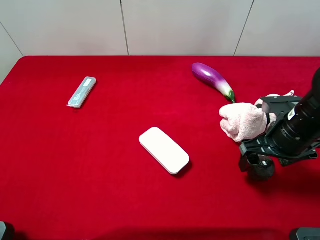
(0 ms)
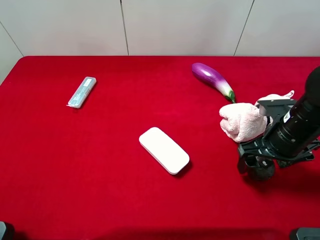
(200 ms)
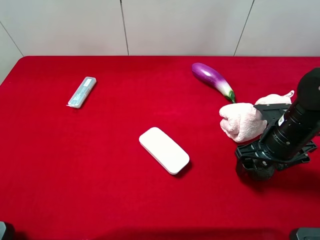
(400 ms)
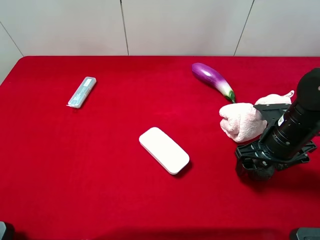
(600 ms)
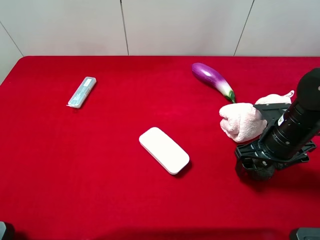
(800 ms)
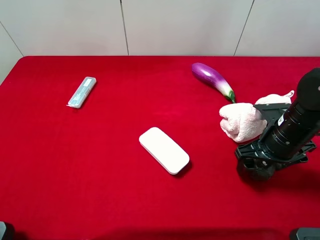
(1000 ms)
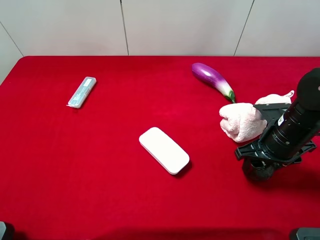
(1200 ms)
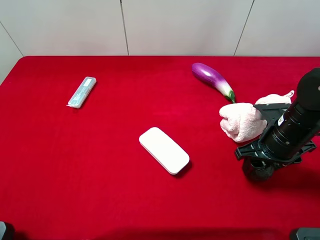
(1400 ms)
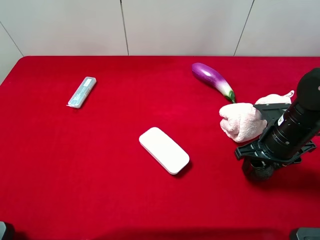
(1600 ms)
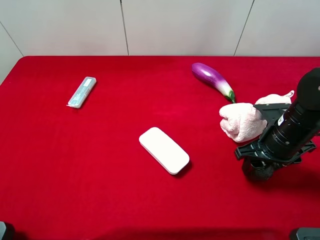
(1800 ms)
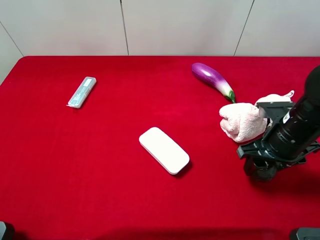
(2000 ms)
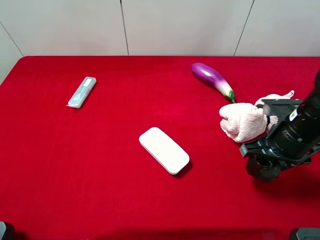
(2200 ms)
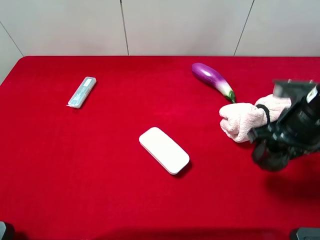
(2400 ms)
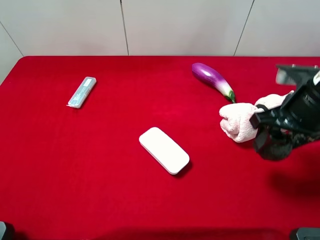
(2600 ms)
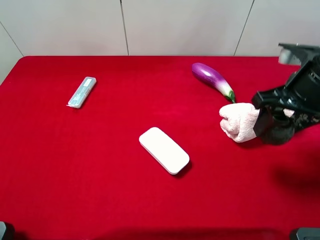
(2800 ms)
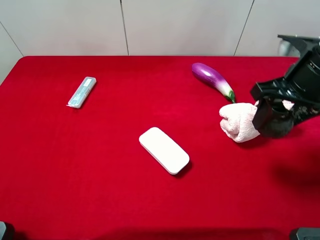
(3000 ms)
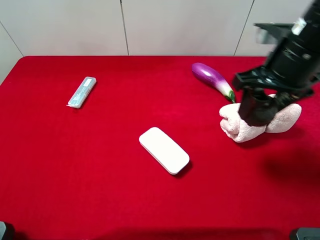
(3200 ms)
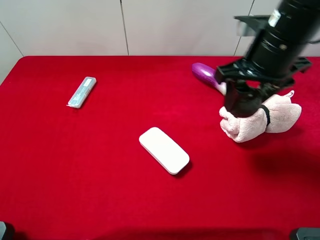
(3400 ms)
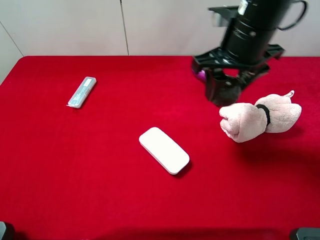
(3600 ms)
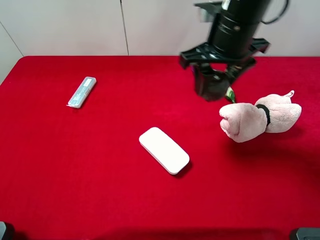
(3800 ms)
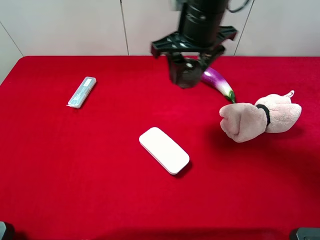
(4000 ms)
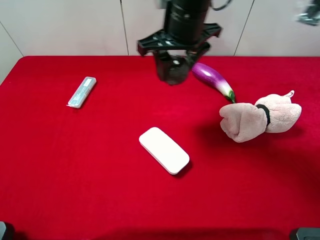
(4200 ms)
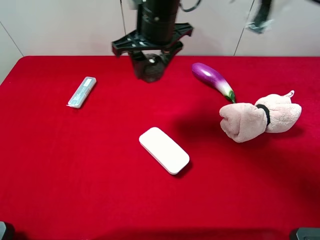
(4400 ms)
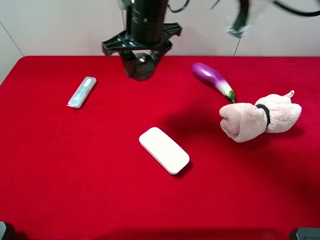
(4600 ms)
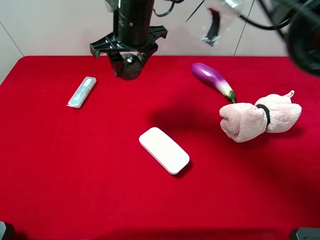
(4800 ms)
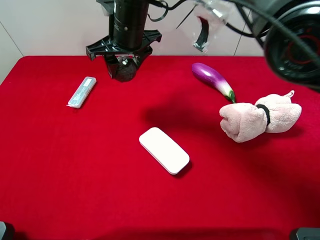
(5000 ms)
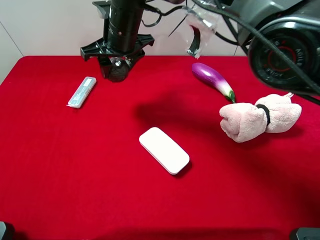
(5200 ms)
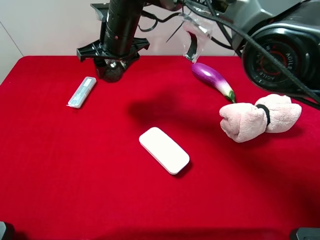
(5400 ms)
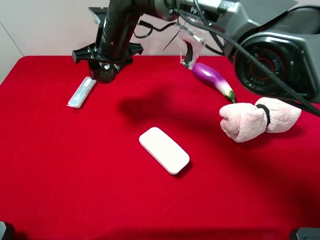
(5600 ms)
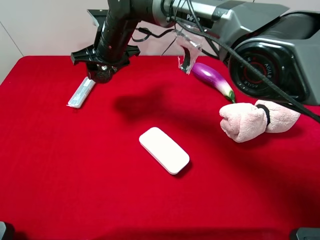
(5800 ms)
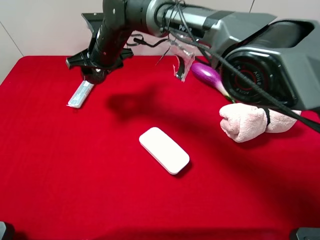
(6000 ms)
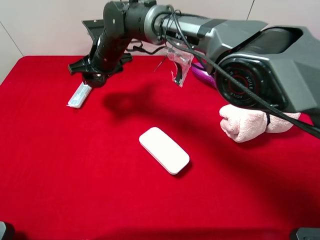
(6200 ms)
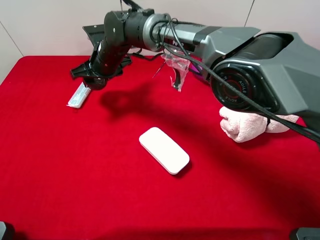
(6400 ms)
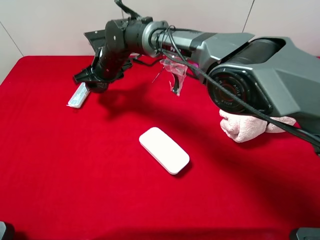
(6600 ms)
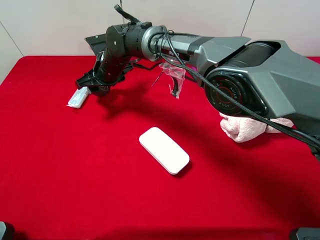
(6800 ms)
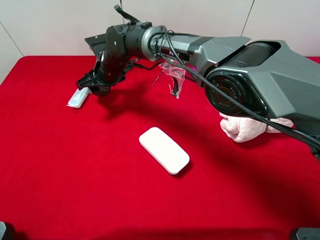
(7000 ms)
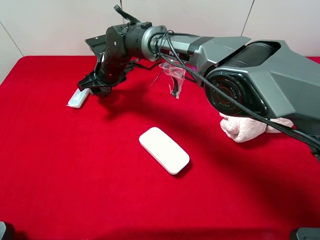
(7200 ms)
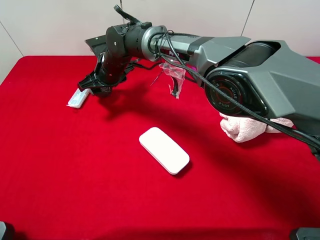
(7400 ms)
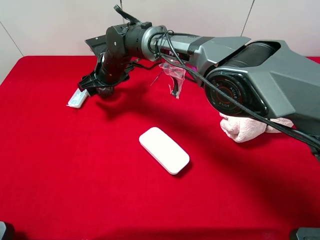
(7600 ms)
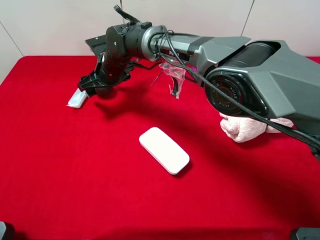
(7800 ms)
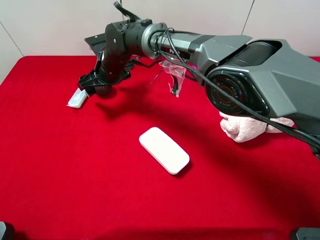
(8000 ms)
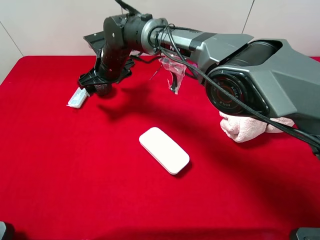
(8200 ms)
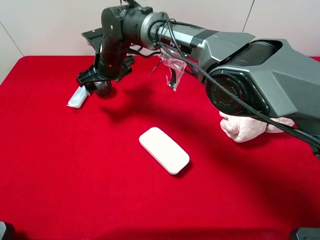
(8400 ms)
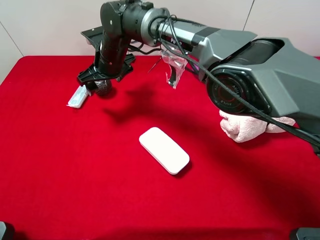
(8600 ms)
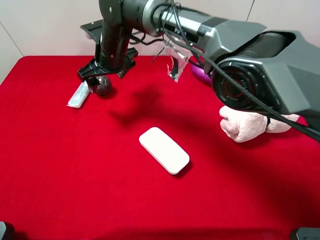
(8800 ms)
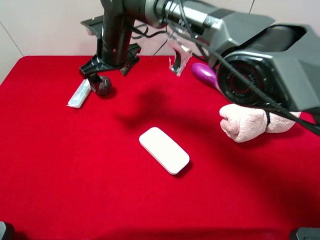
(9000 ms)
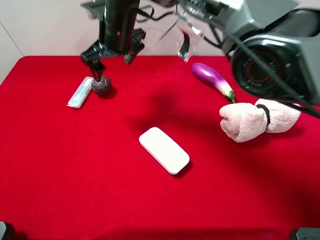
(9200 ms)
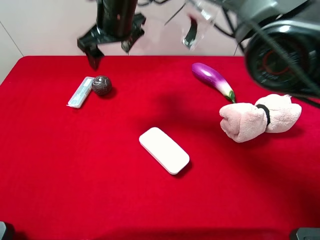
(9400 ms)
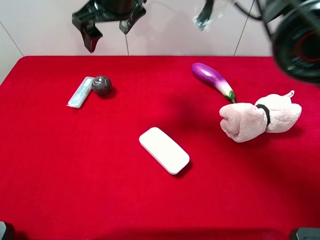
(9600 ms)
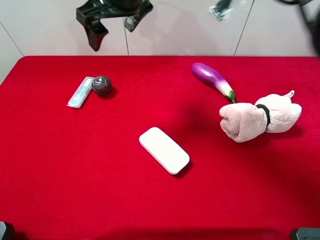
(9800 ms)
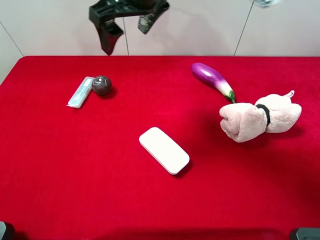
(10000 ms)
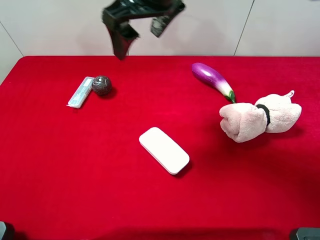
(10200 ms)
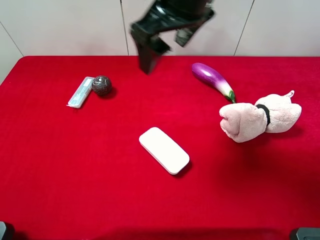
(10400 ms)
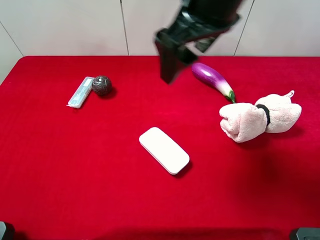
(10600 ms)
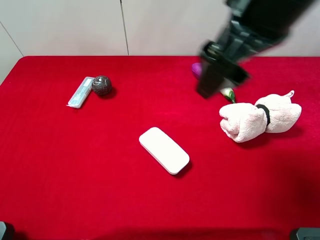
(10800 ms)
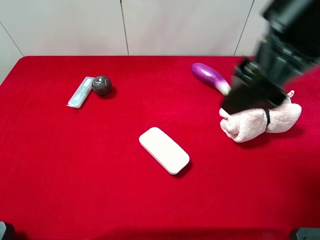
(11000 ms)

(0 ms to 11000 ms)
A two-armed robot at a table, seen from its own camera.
Task of the whole recording: the gripper move the object.
Step, 1800 ms - 9000 ms: Place the mangosteen on the table with the right gripper.
0 ms - 1600 ms: The right gripper closes its fingers.
1600 ms - 3200 ms: The right gripper shifts some 15 cm upward.
3200 ms - 4800 ms: The right gripper is displaced to the left and forward by about 25 cm.
4800 ms - 6200 ms: The right gripper heads downward and to the left, covering some 10 cm.
6200 ms - 7800 ms: The right gripper opens its fingers.
7800 ms - 9400 ms: The right gripper shifts roughly 15 cm upward.
9400 ms - 11000 ms: The right gripper shifts about 30 cm to the right, backward and upward.

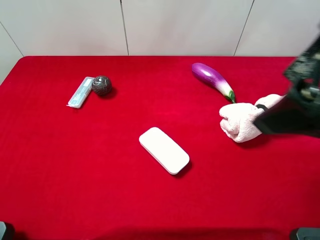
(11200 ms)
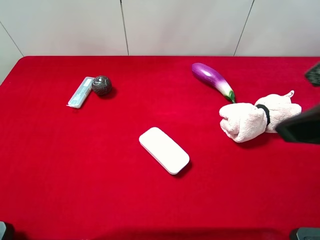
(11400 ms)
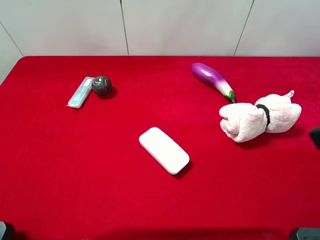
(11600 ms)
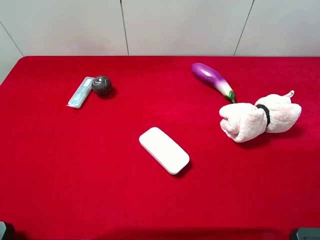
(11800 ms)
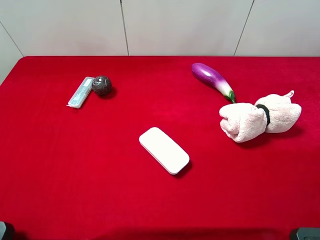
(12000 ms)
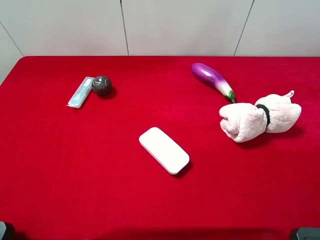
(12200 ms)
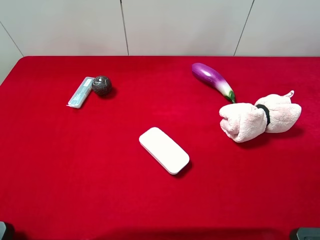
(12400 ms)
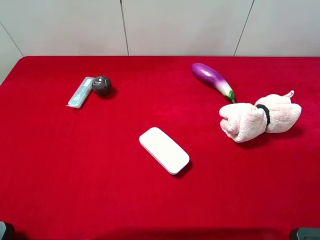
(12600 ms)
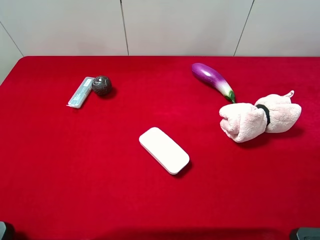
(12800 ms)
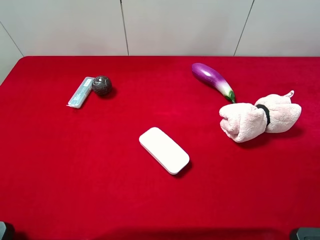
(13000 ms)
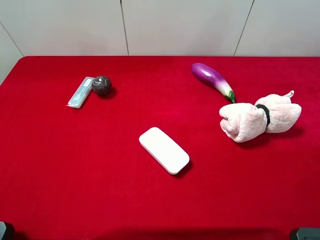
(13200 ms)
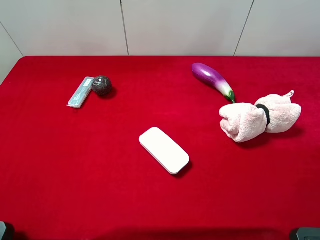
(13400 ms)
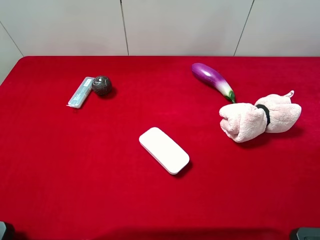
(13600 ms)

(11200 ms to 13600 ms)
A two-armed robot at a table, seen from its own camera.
Task of the whole recording: the gripper move the object.
11200 ms - 12400 ms: The right gripper travels to the right, backward and downward by roughly 15 cm.

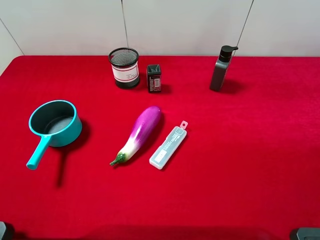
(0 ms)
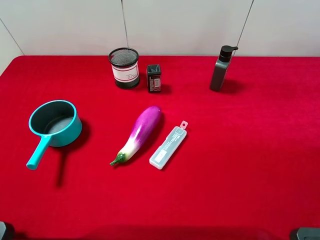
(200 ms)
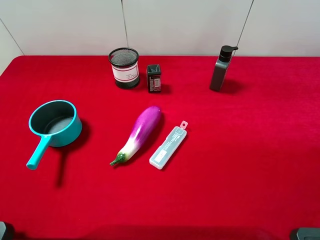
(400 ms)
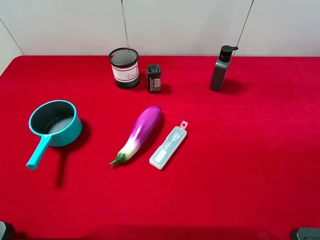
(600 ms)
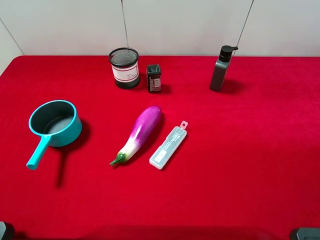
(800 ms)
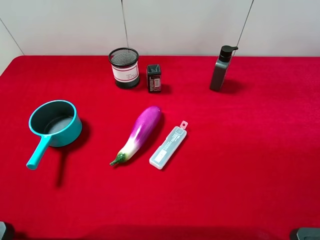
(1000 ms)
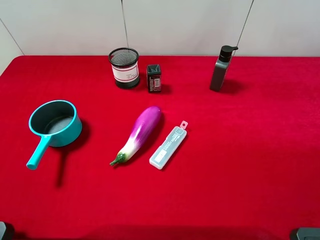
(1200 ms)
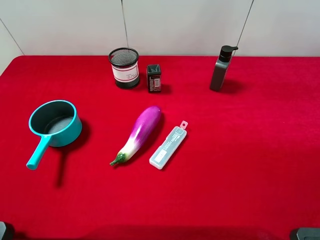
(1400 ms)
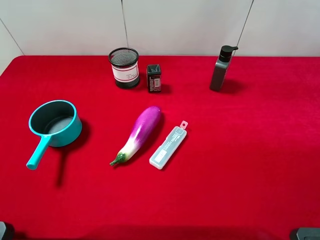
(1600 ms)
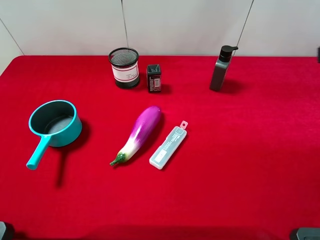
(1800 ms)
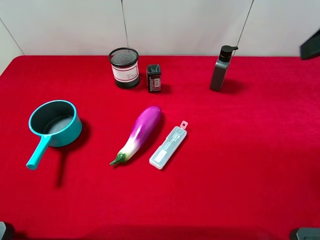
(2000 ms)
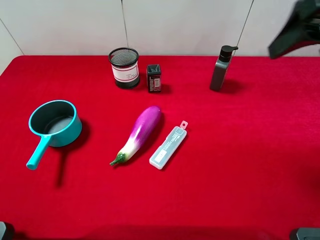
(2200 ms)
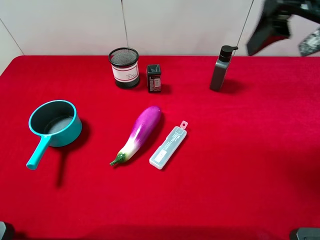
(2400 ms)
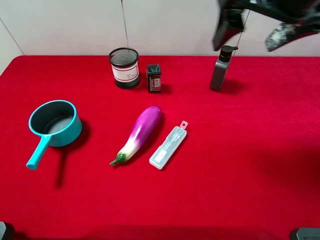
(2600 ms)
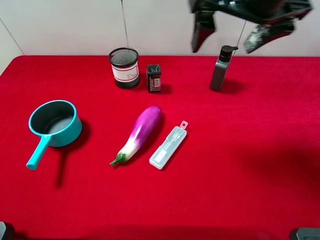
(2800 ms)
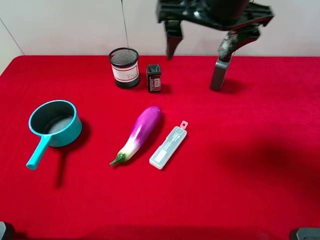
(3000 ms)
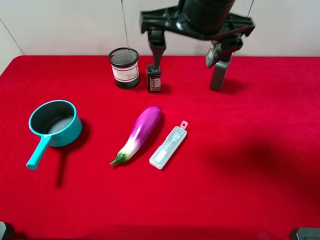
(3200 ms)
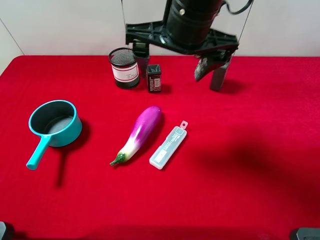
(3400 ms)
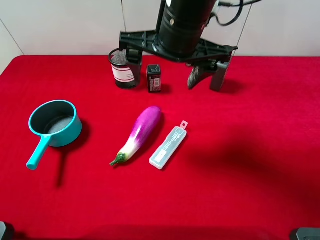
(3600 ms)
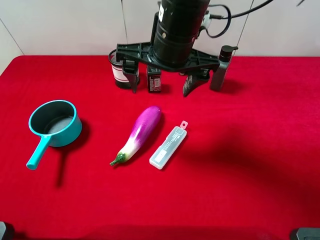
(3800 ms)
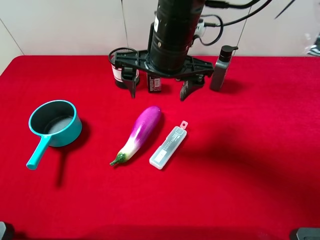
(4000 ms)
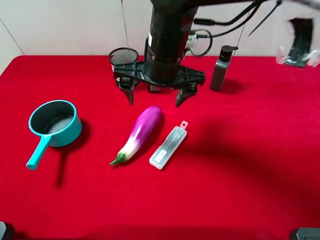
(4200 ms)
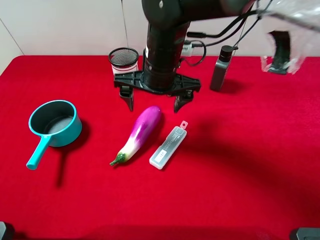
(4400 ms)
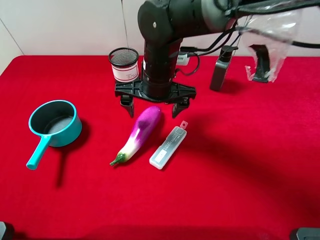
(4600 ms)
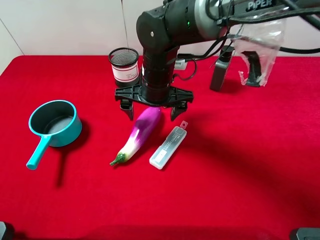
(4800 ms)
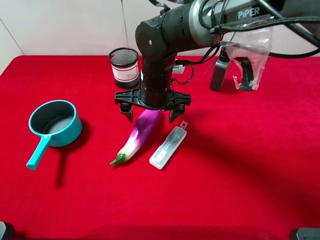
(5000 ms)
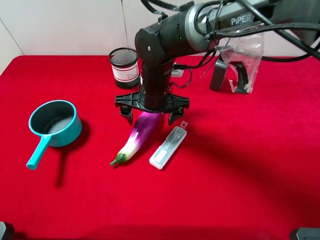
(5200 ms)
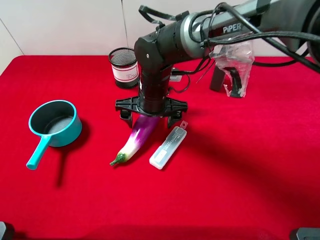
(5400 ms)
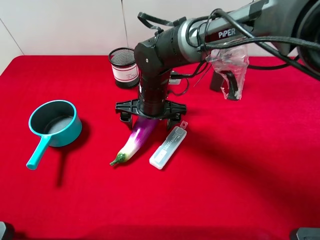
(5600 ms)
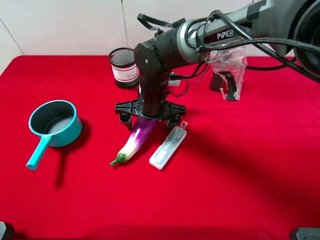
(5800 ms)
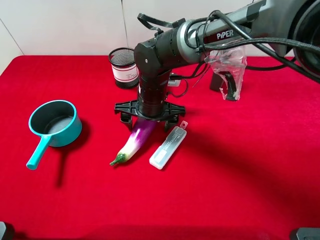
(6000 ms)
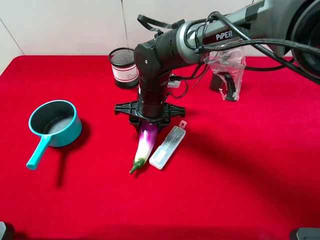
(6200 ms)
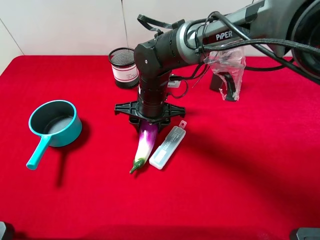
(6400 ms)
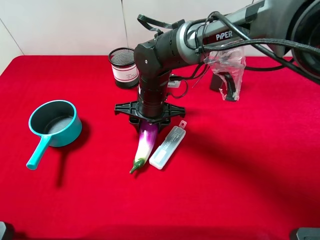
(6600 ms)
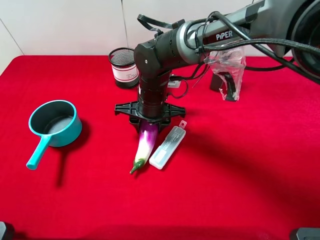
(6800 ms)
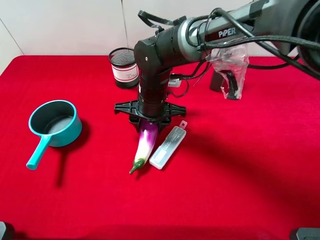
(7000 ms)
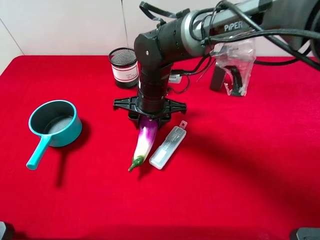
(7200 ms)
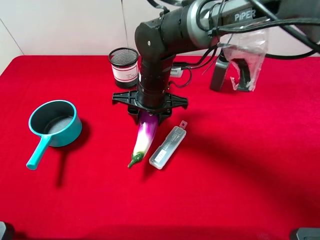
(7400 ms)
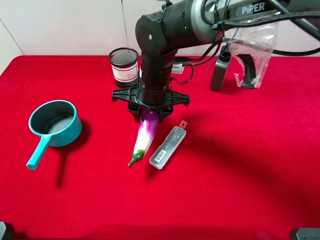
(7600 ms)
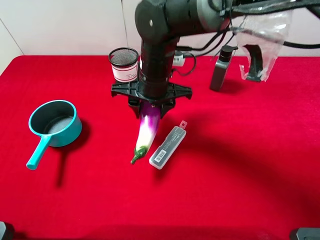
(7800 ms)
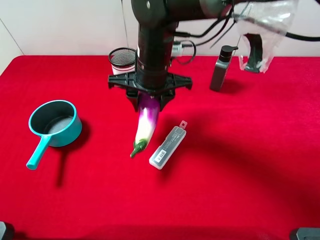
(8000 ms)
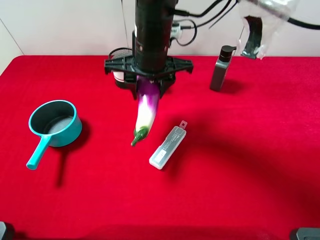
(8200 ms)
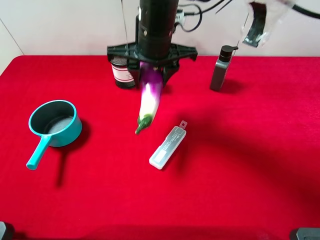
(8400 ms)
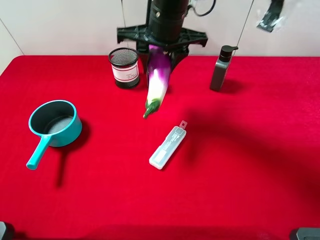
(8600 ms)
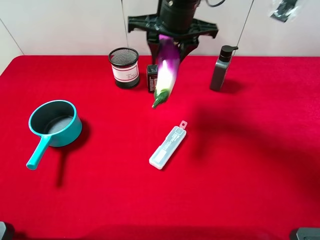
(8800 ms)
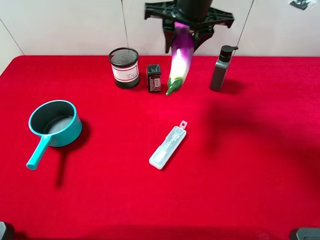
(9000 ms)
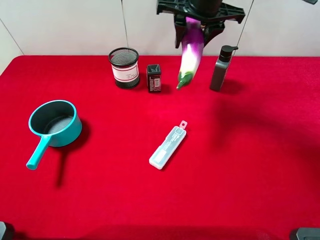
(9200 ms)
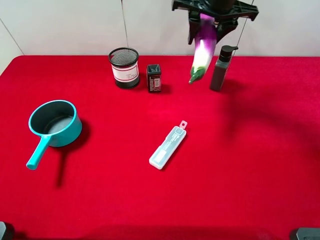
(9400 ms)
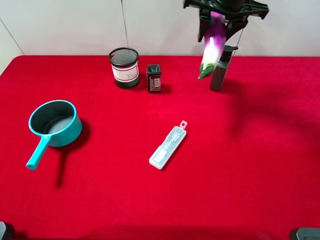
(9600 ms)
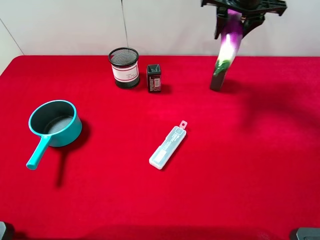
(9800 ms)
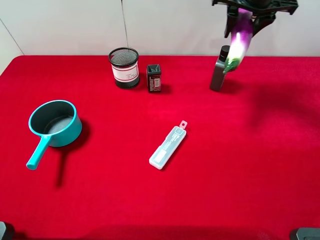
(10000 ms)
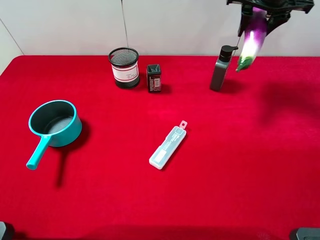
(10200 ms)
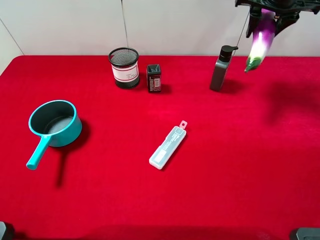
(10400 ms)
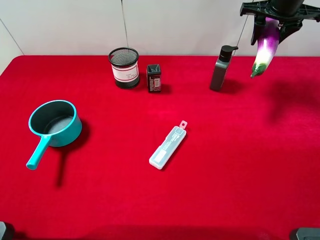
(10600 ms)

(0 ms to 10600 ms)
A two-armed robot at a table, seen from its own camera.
Task of the whole recording: the gripper move the object.
Step, 0 ms - 6400 ms: Grasp the eggplant with the right gripper.
1600 ms - 3000 ms: The right gripper moves to the left and forward, roughly 25 cm.
3000 ms - 4600 ms: The right gripper heads downward and to the left, covering approximately 20 cm.
4600 ms - 6000 ms: The right gripper shifts some 5 cm downward.
6000 ms - 7600 ms: The right gripper closes its fingers.
7600 ms - 9000 ms: The right gripper shifts about 20 cm upward, to the right and forward.
9000 ms - 10600 ms: The right gripper heads to the right and forward, covering approximately 20 cm.
